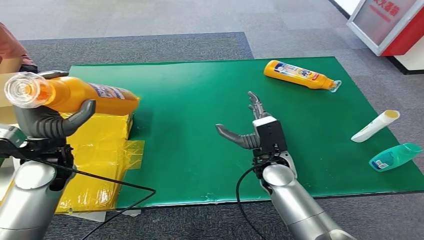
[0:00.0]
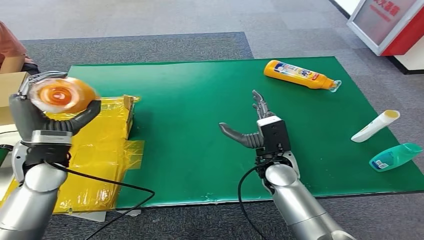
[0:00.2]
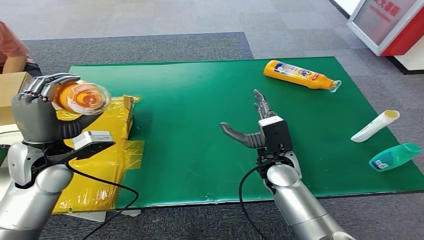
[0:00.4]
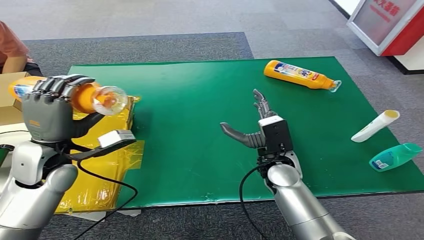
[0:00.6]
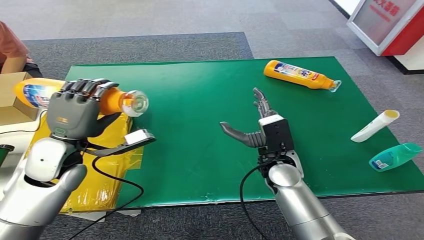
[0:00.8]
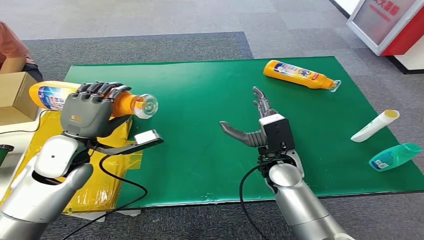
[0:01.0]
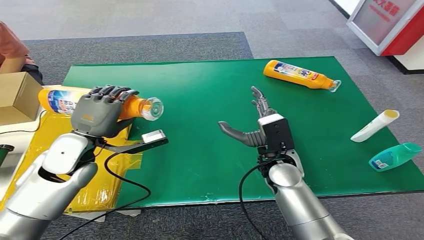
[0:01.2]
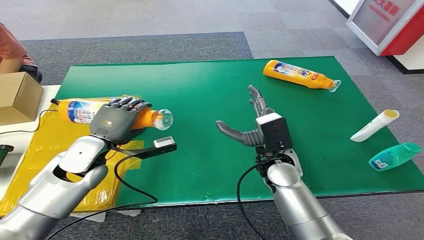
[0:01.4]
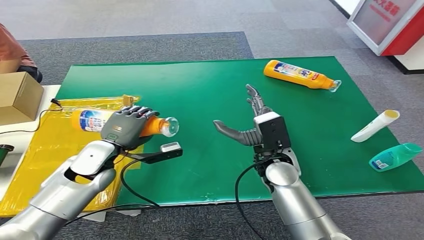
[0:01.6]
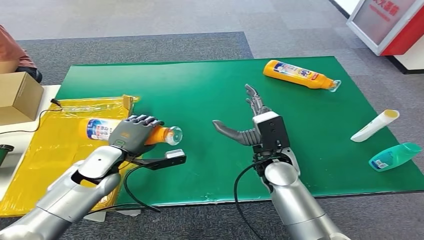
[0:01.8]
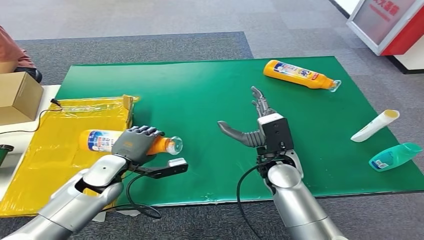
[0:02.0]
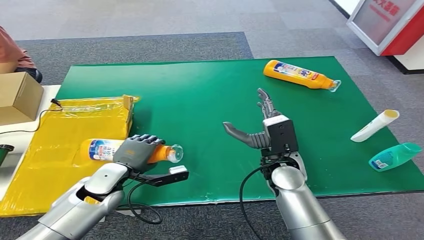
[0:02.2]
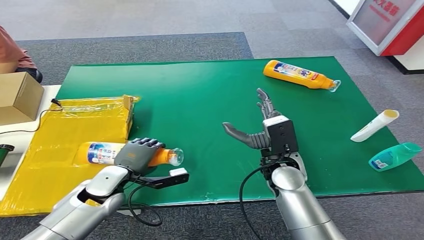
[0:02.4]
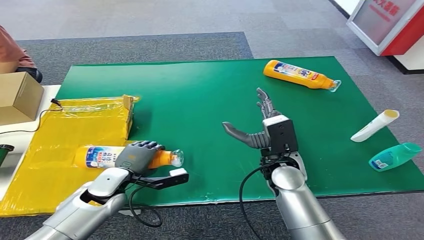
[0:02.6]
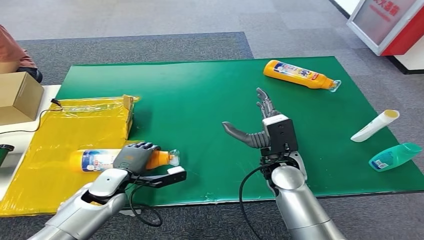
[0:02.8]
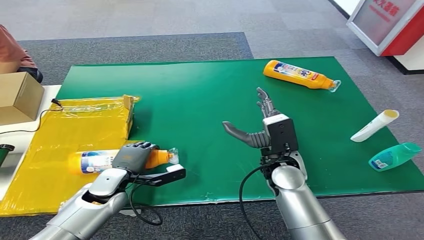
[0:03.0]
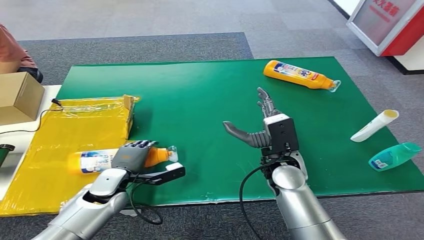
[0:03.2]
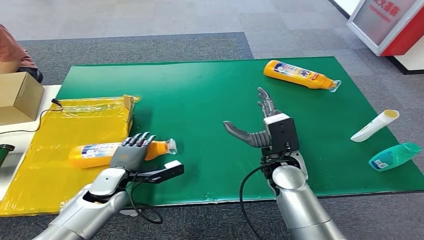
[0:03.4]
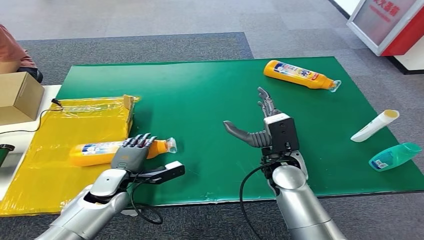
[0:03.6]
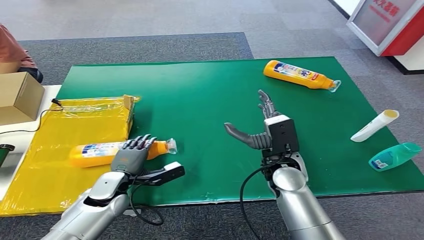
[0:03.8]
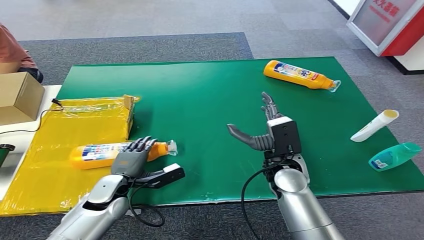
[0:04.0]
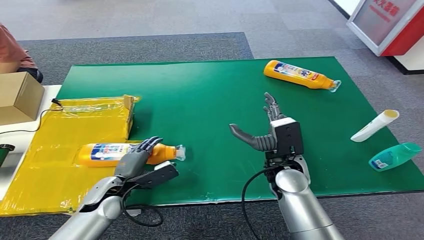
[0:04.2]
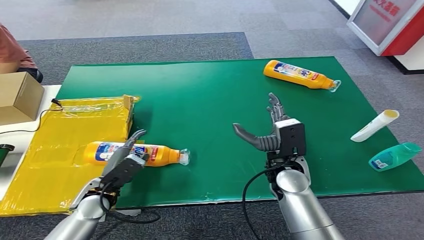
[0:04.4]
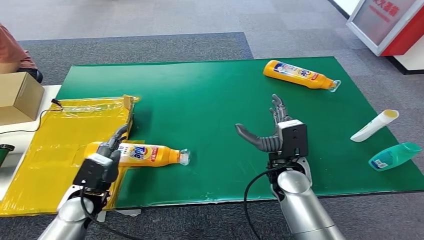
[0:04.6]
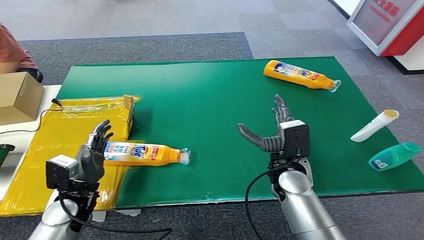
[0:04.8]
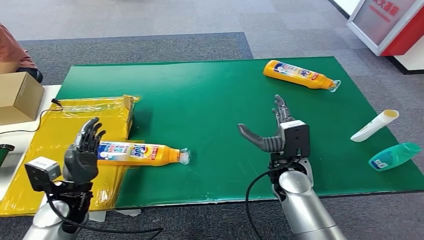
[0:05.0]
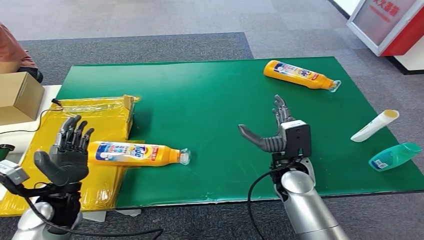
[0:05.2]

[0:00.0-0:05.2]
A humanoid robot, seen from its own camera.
Step, 0:00.0 to 0:05.2: Turn the bottle to the front side.
0:00.0 to 0:01.8: The left hand travels downward and to the right by some 10 cm.
0:01.8 to 0:03.4: The left hand is displaced downward by roughly 10 cm.
0:03.4 to 0:05.2: The left hand moves to the left, backward and upward, roughly 10 cm.

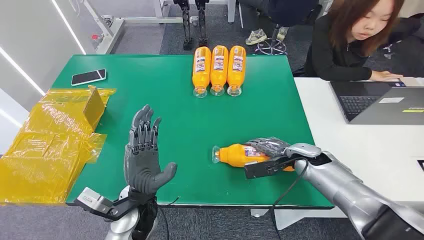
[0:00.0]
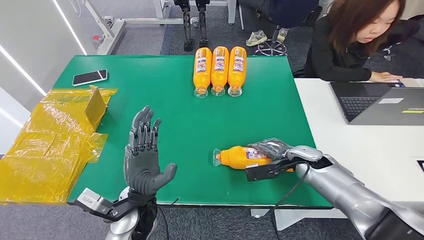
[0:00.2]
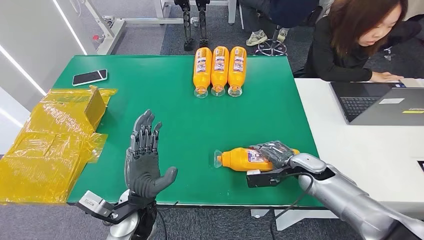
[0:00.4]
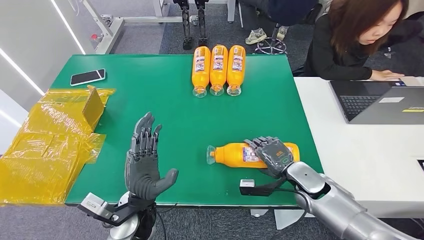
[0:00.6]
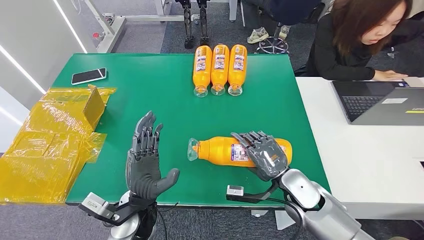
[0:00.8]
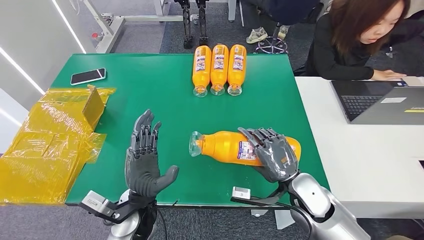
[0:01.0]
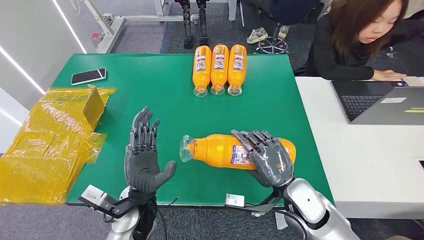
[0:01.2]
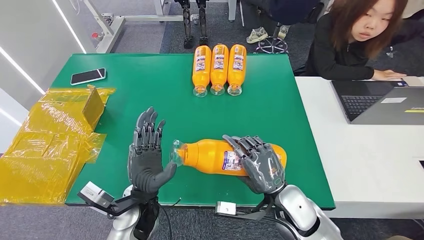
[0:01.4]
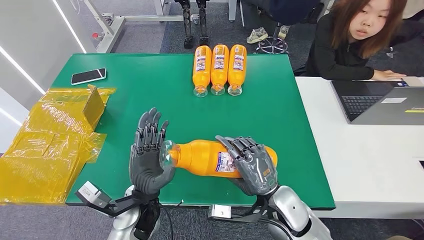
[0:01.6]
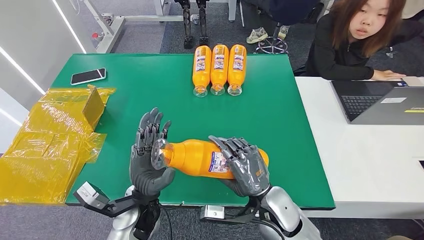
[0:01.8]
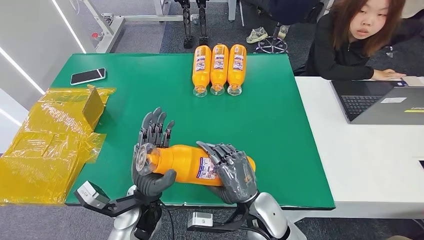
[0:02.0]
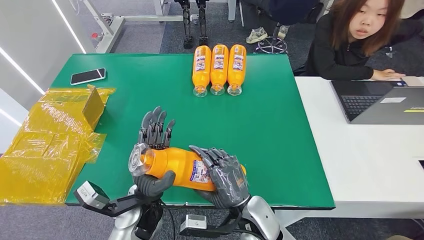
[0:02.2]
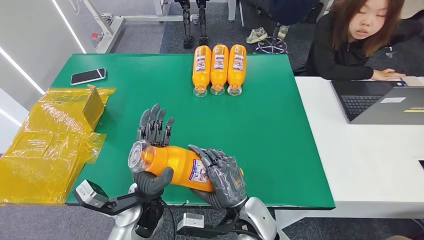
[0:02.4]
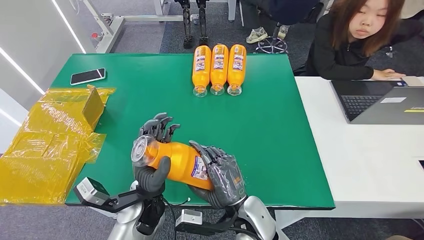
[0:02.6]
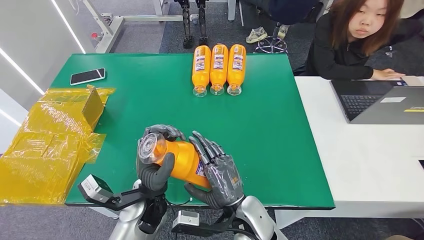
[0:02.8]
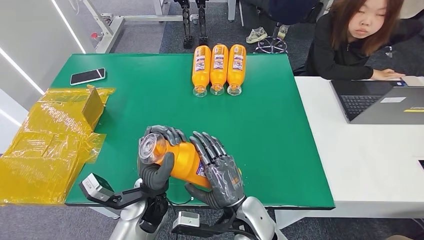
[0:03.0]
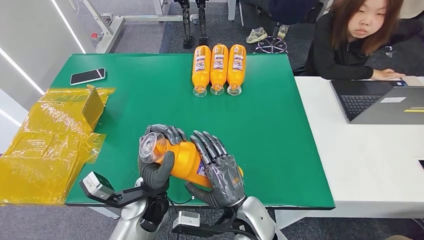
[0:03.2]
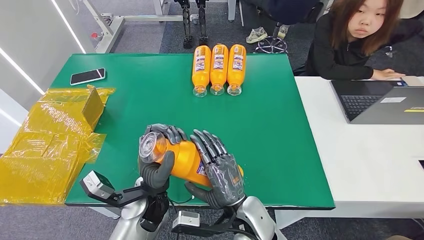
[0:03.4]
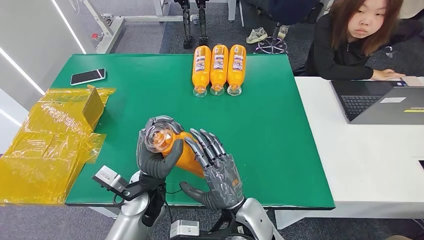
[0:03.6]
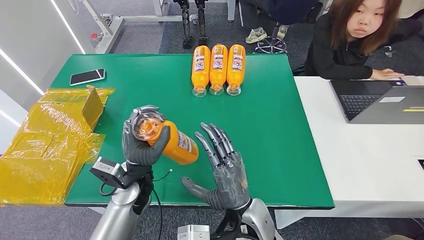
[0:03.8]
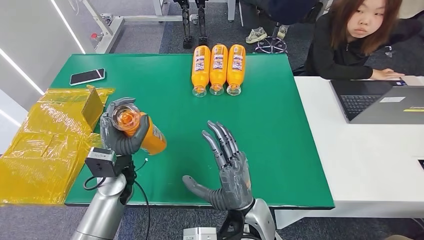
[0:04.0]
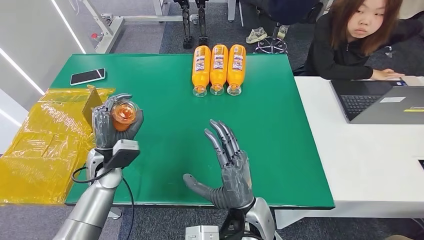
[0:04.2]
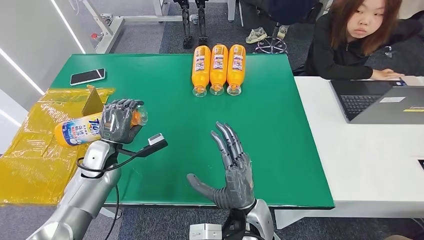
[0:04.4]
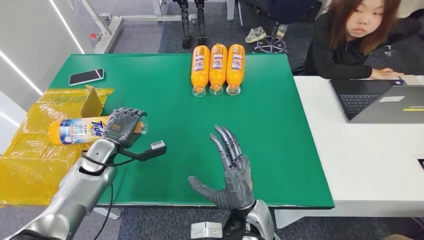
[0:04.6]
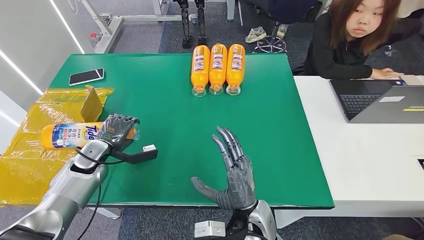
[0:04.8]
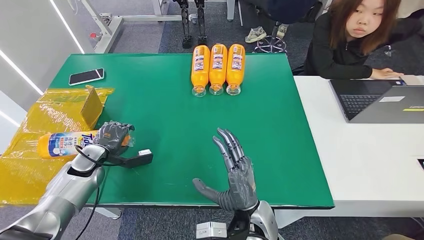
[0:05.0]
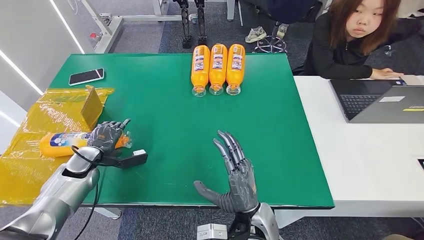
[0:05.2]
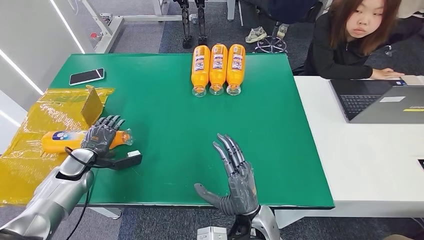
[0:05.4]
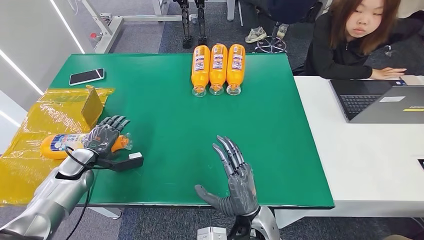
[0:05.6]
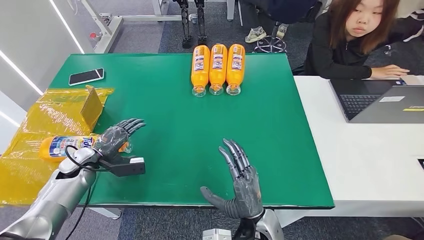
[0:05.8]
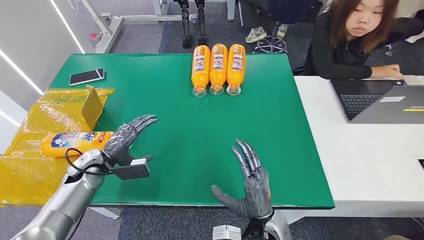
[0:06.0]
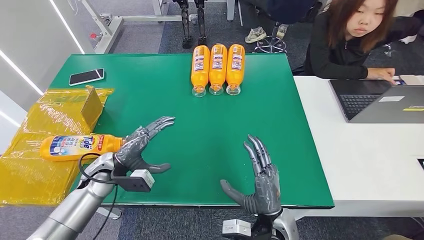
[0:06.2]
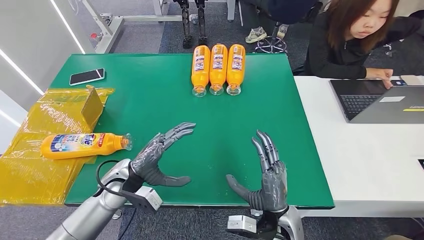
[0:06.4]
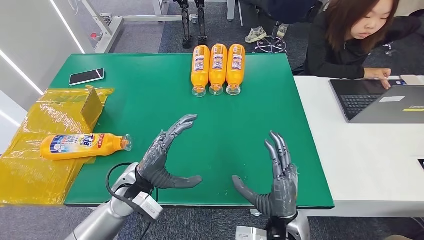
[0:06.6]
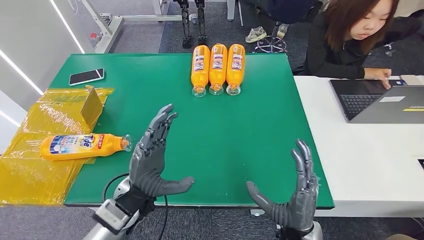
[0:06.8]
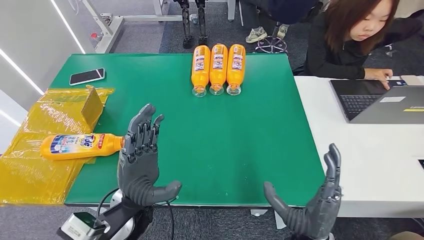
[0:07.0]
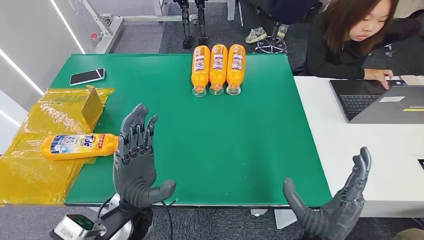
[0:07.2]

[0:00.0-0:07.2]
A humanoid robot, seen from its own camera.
Step, 0:00.0 to 0:01.6: Pick up the bottle from the table.
Step, 0:02.0 to 0:07.0: Turn the bottle to the front side.
0:01.4 to 0:02.8: The right hand heads to the left, covering about 10 cm.
0:02.8 to 0:04.4: The left hand goes about 20 cm to the left and forward.
0:04.4 to 0:05.8: The right hand ends up roughly 5 cm from where it was; the left hand shifts some 10 cm to the left.
0:05.8 to 0:07.2: The left hand shifts about 30 cm to the right and backward. The right hand travels to the right by some 10 cm.
